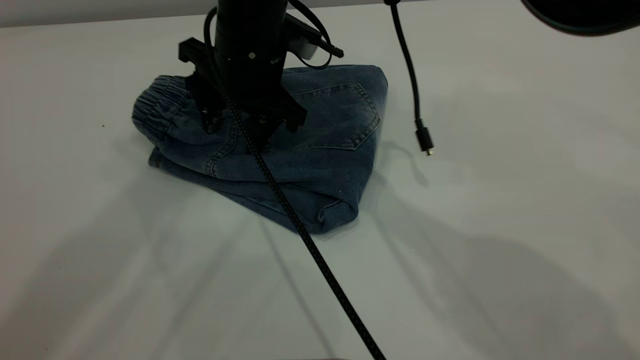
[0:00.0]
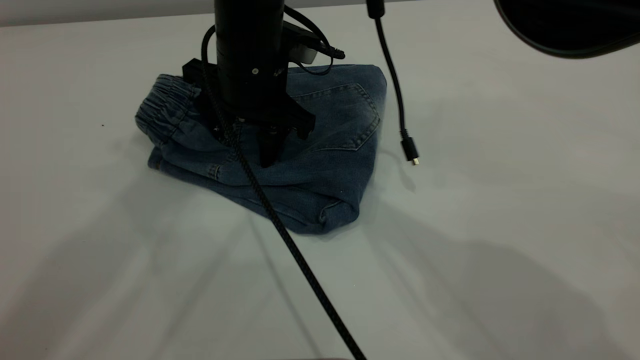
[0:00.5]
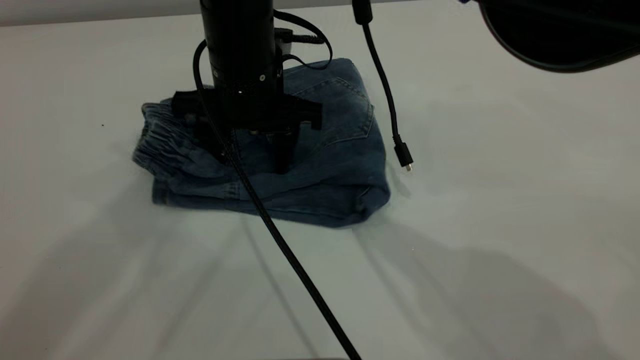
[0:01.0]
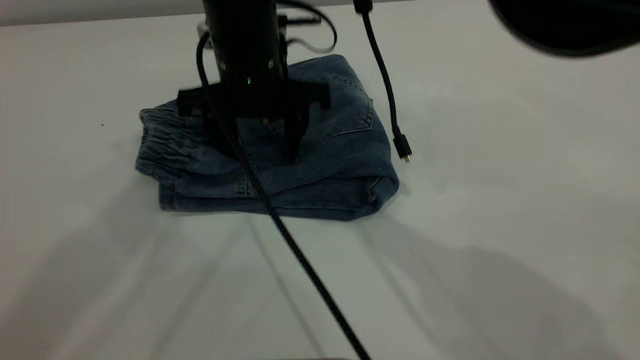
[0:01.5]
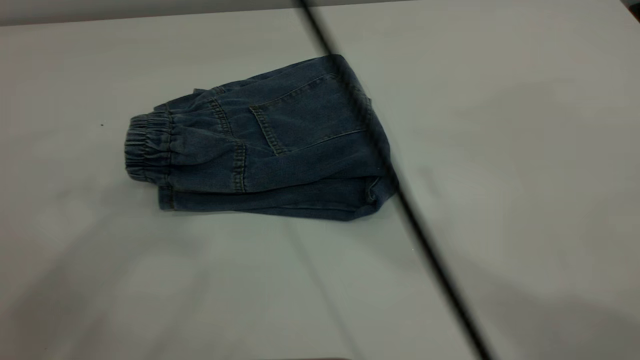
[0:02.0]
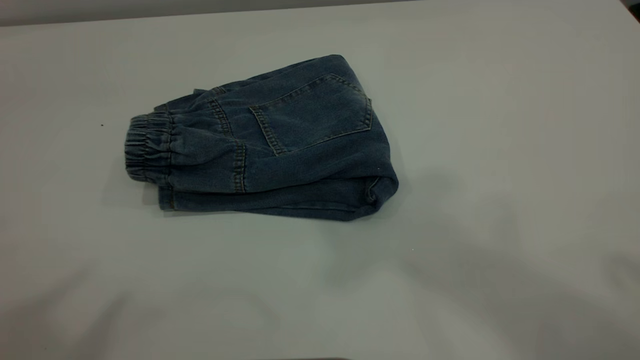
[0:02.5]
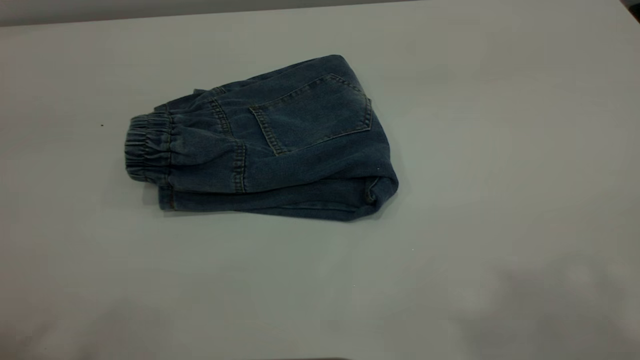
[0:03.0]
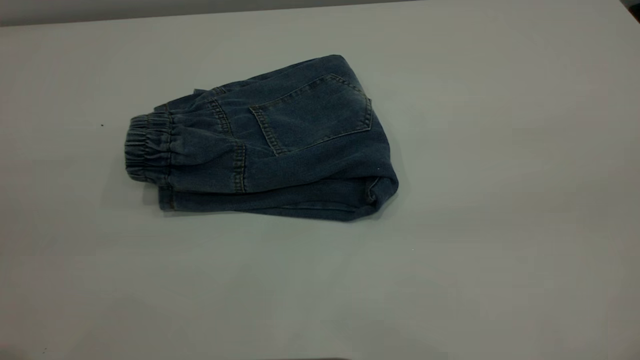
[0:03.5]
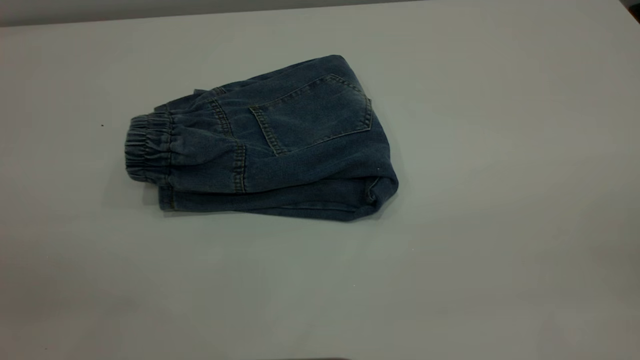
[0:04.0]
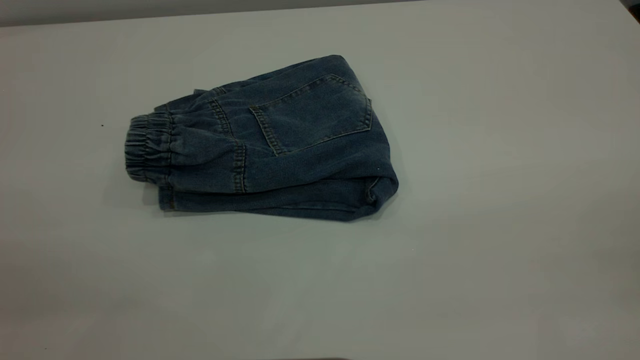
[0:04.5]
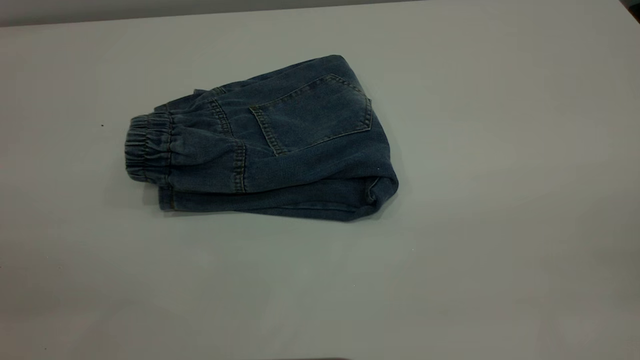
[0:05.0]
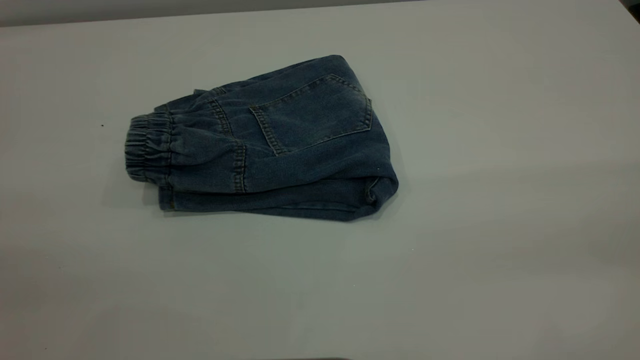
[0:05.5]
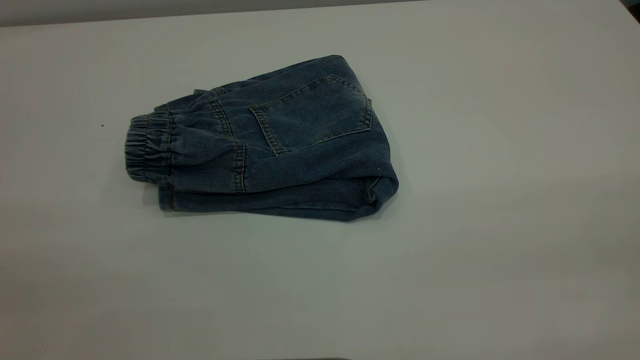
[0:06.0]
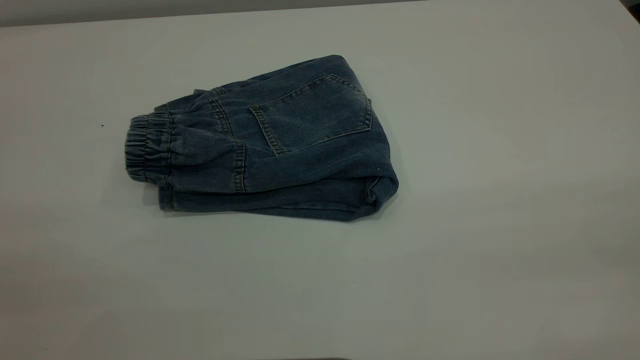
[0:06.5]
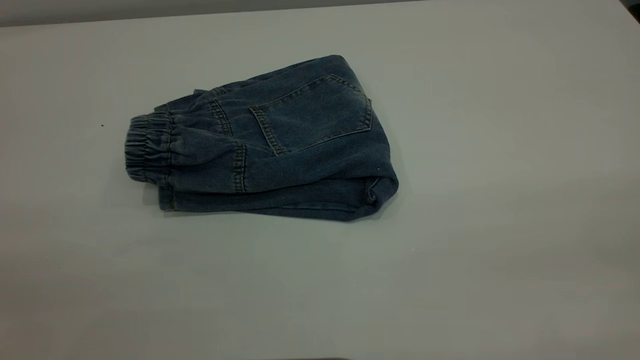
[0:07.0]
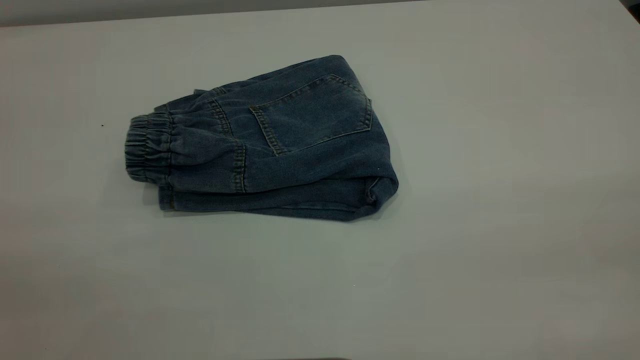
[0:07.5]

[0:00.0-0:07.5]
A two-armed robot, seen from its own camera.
0:00.0 to 0:02.0: The right gripper travels upward by roughly 25 cm; the left gripper moves backward and upward, roughly 10 cm.
0:02.0 to 0:04.0: The left gripper heads downward and backward, covering approximately 30 cm, while the right gripper moves backward and to the right, about 50 cm.
